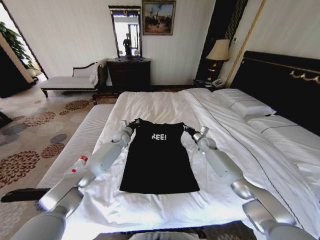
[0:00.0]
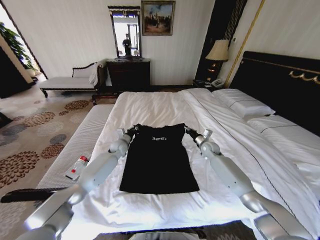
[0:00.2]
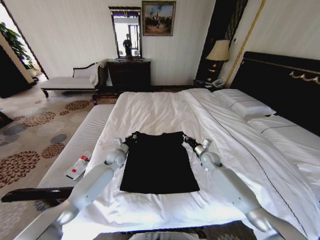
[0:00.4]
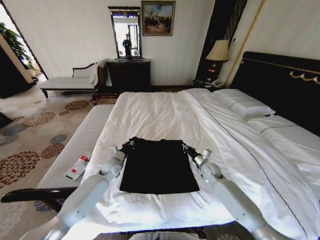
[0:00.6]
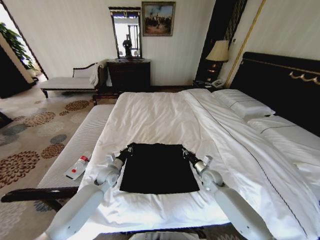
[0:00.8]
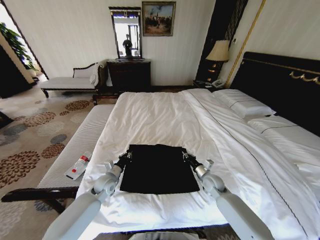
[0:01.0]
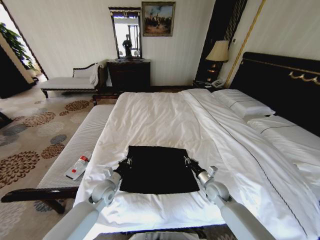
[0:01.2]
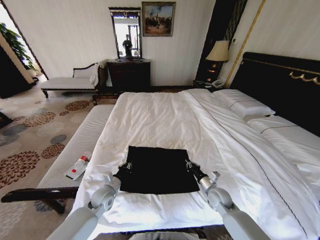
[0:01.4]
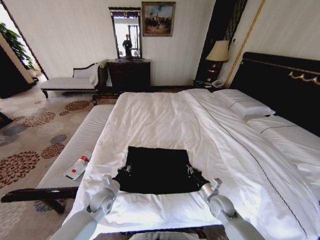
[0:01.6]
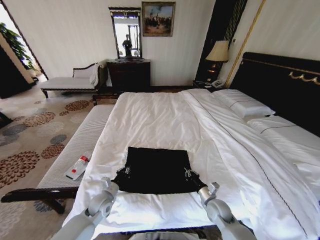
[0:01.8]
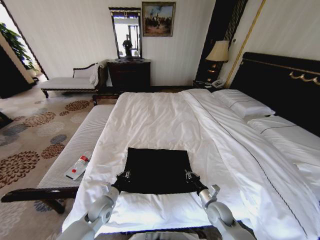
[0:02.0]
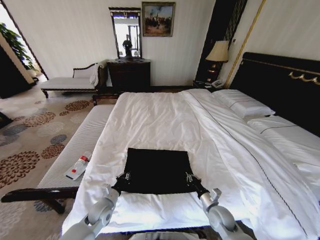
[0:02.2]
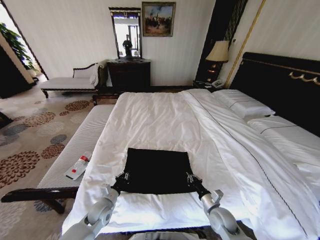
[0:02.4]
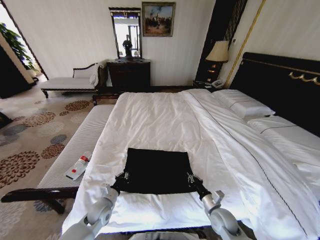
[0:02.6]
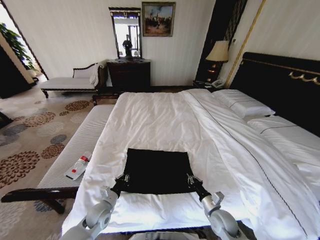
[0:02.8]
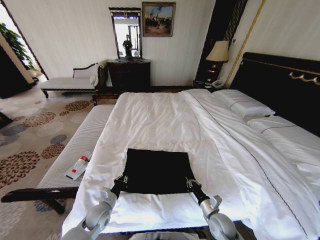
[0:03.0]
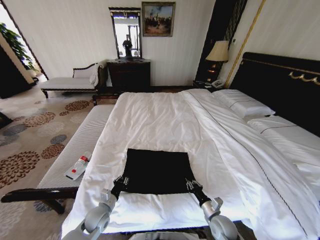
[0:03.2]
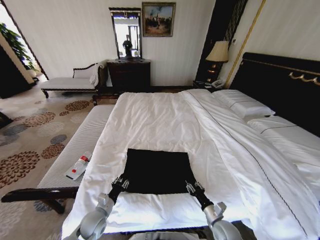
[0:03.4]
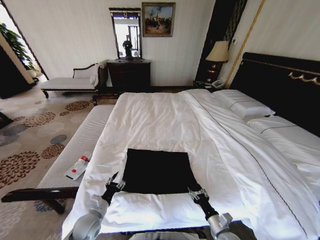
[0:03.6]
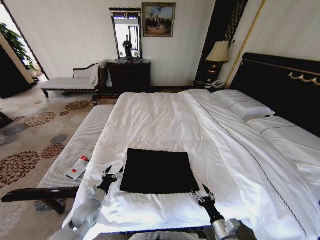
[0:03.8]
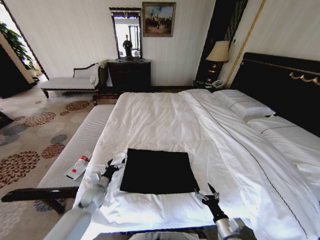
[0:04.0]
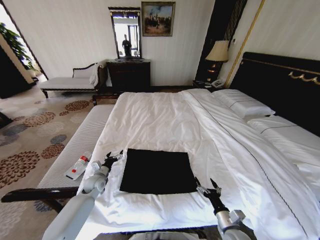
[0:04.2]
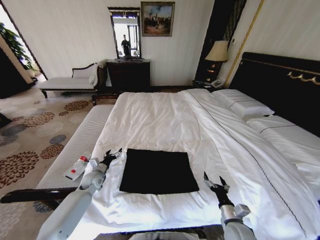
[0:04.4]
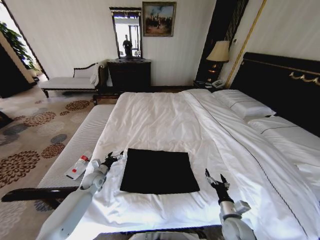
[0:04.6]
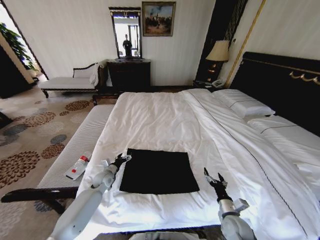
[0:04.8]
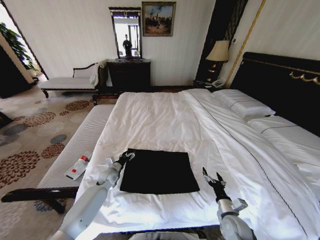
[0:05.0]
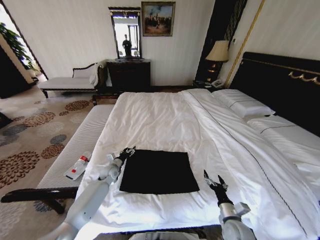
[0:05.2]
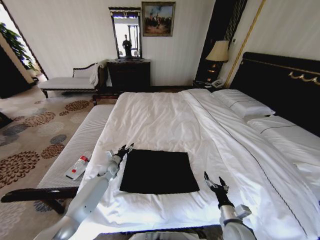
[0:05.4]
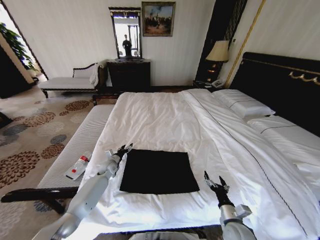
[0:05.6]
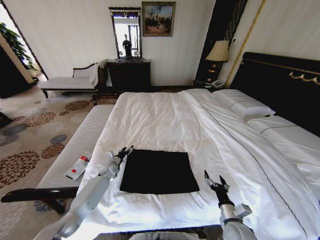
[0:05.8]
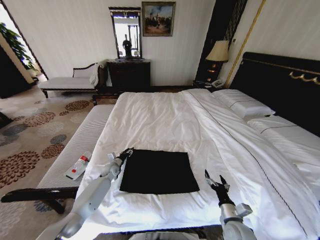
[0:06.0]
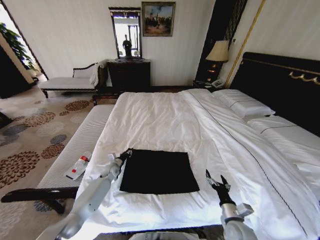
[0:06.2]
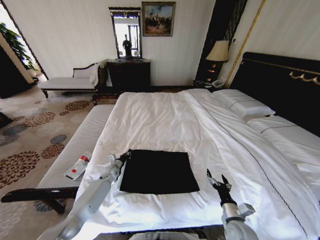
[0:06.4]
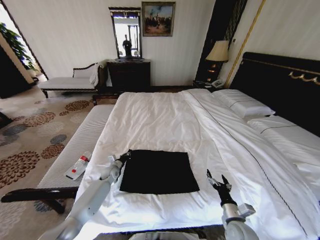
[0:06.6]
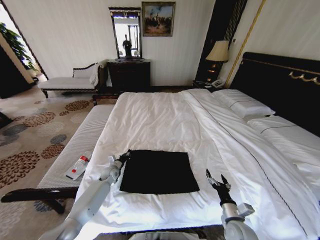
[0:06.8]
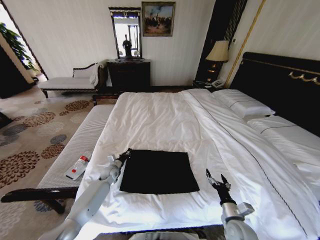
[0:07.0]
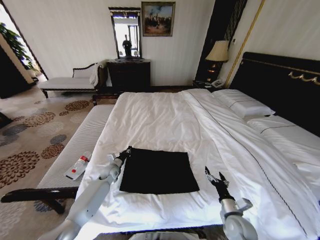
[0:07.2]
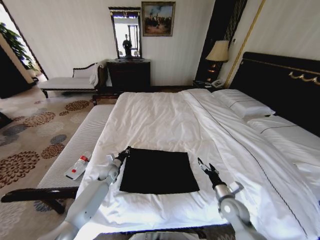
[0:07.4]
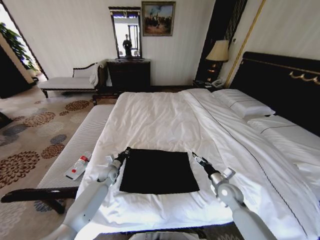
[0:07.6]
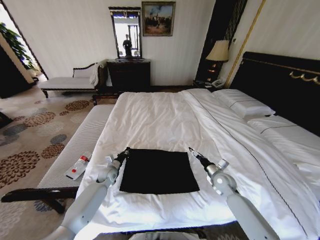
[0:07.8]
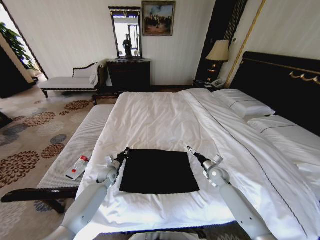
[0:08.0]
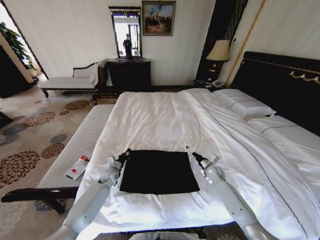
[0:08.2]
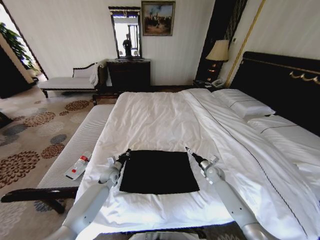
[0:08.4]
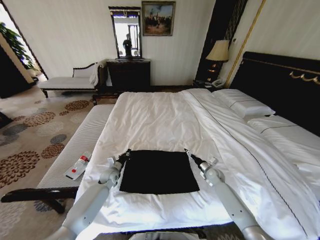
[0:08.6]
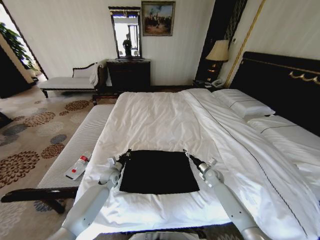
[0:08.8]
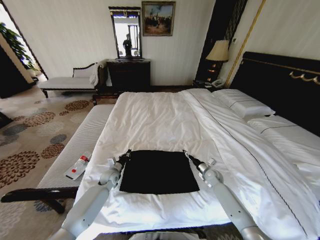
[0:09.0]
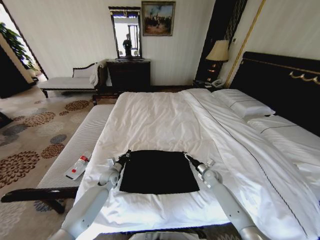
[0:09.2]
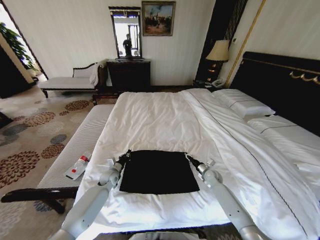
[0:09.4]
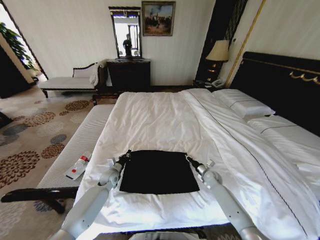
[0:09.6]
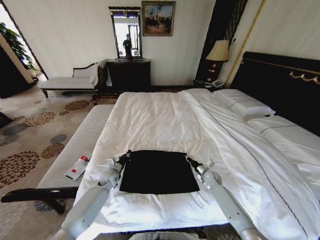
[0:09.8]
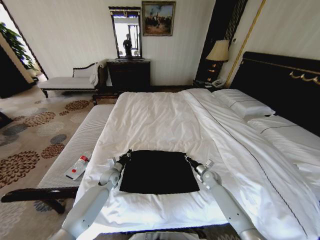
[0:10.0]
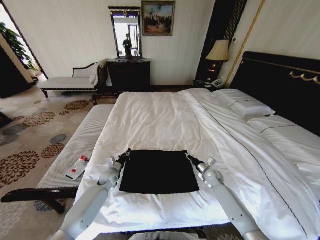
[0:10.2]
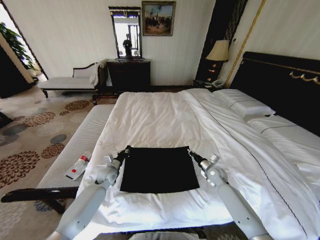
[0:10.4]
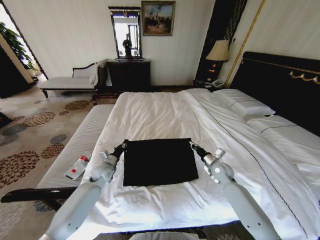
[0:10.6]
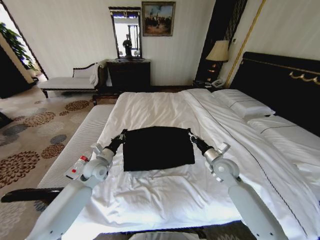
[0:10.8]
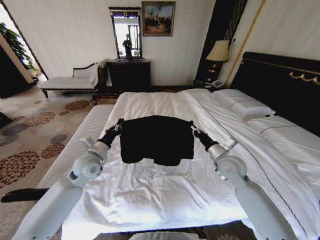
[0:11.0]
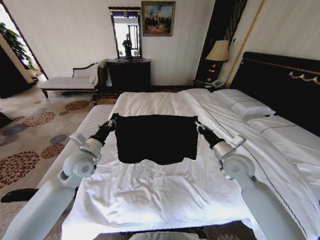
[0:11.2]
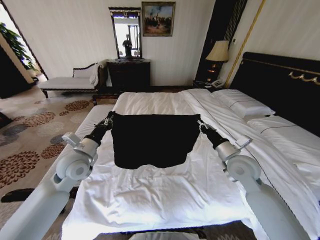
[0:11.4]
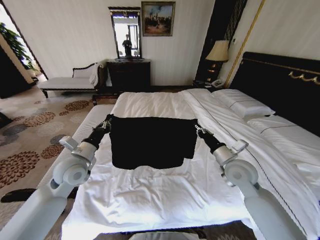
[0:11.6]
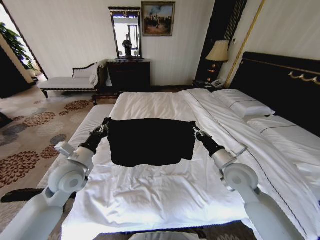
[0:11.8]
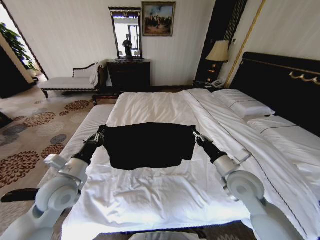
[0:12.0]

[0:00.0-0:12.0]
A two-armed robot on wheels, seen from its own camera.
Task of the whole recording: Fold the clothes on the bed.
0:00.0 to 0:01.6: The two grippers go about 30 cm backward.
0:01.6 to 0:03.0: The two grippers go some 5 cm backward.
0:03.0 to 0:04.4: The right gripper changes place by about 5 cm, and opens; the left gripper shifts some 15 cm forward and to the left, and opens its fingers.
0:04.4 to 0:06.0: The left gripper is displaced forward, to the right and downward by about 10 cm, and closes up.
0:06.0 to 0:07.6: The right gripper travels forward by approximately 15 cm; the left gripper closes up.
0:07.6 to 0:09.0: The right gripper heads forward and downward, covering about 15 cm.
0:09.0 to 0:10.4: The right gripper heads upward, covering some 5 cm, and closes.
0:10.4 to 0:12.0: The two grippers go some 25 cm upward and backward.

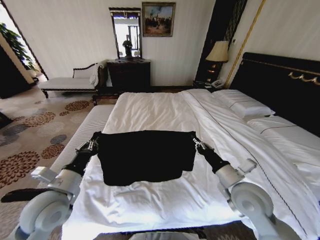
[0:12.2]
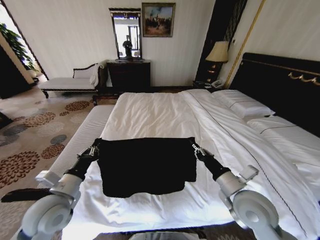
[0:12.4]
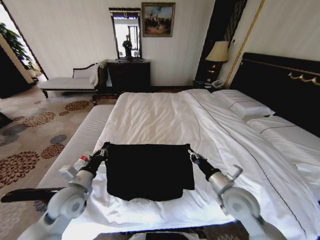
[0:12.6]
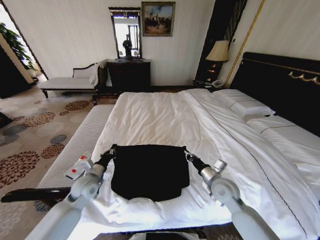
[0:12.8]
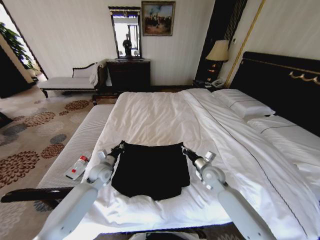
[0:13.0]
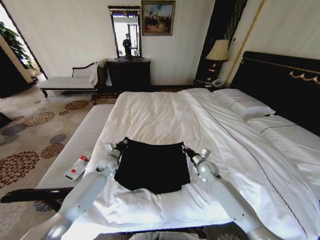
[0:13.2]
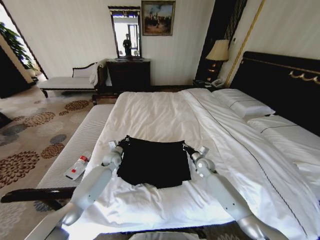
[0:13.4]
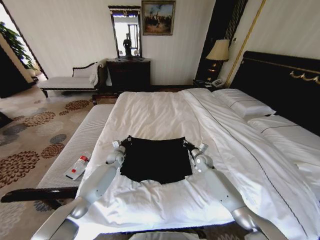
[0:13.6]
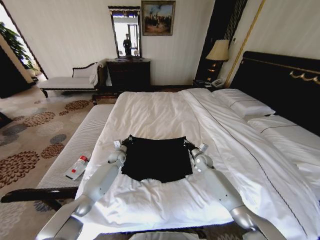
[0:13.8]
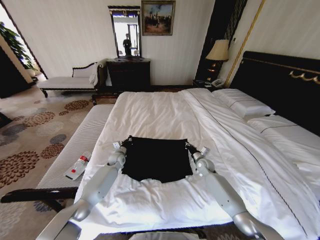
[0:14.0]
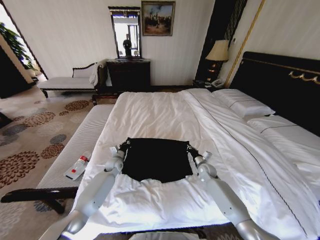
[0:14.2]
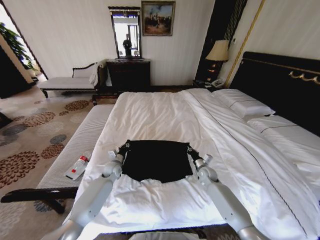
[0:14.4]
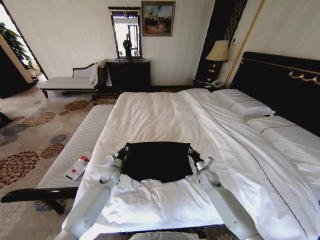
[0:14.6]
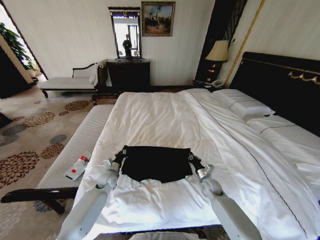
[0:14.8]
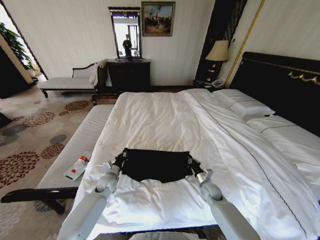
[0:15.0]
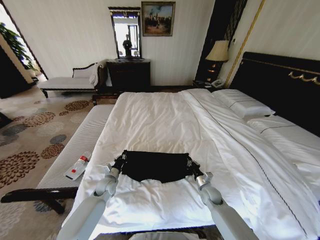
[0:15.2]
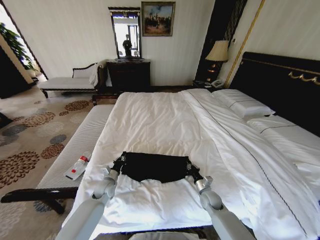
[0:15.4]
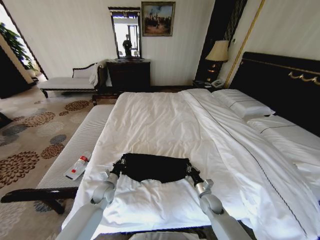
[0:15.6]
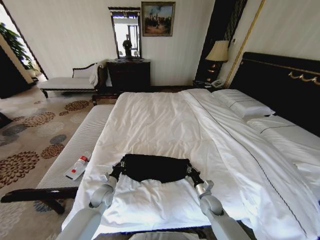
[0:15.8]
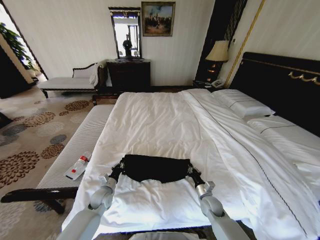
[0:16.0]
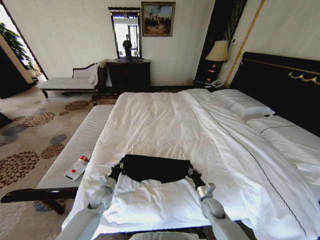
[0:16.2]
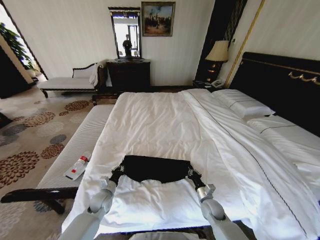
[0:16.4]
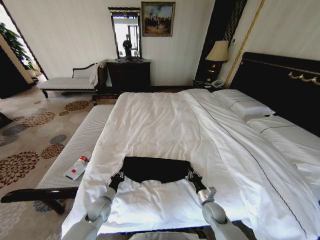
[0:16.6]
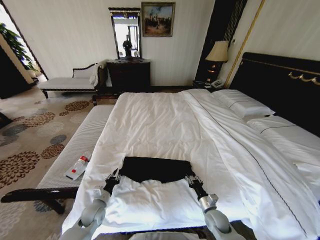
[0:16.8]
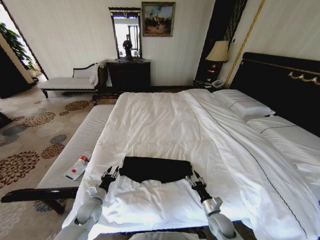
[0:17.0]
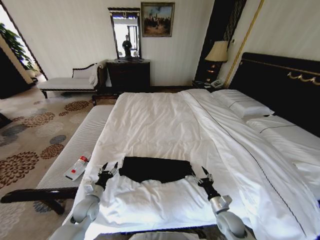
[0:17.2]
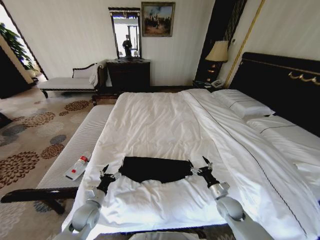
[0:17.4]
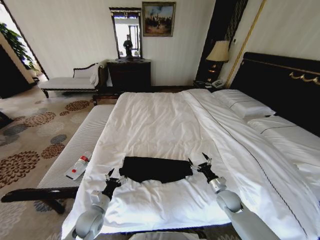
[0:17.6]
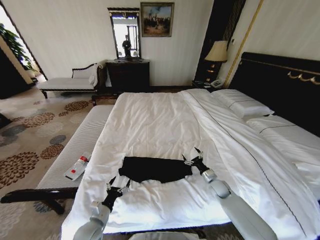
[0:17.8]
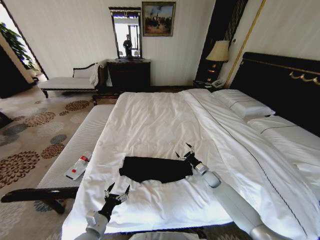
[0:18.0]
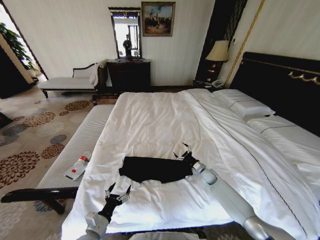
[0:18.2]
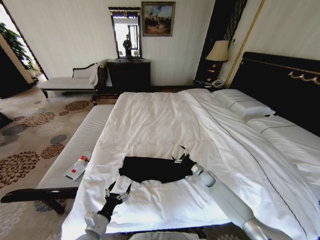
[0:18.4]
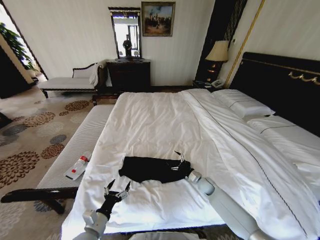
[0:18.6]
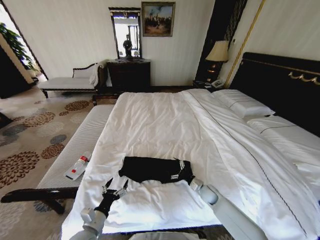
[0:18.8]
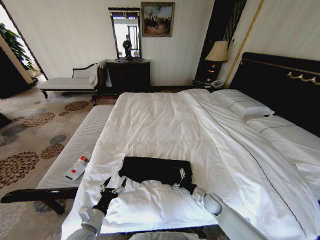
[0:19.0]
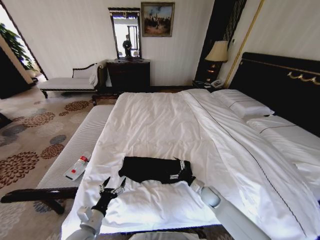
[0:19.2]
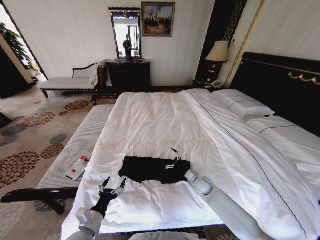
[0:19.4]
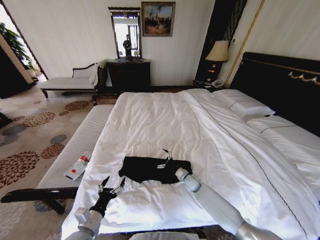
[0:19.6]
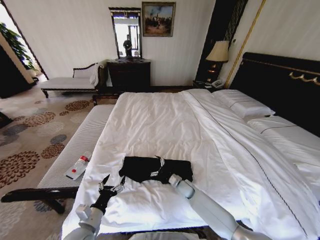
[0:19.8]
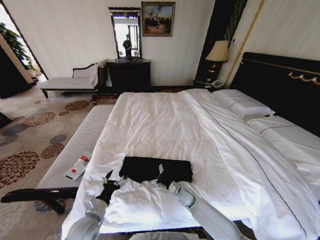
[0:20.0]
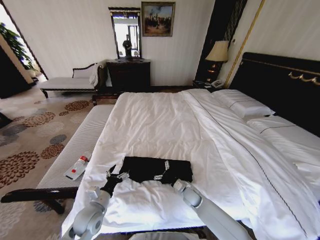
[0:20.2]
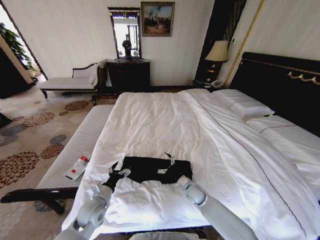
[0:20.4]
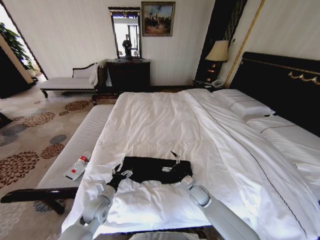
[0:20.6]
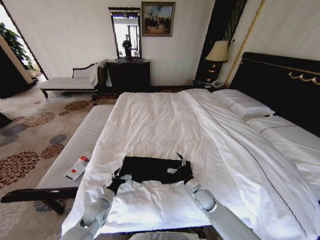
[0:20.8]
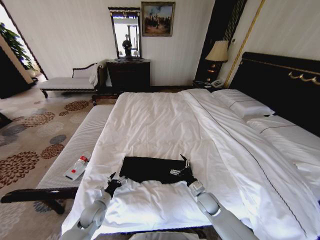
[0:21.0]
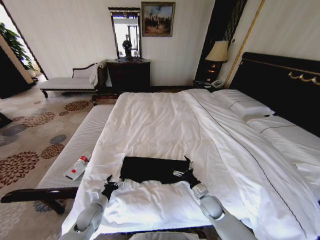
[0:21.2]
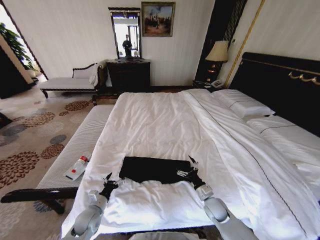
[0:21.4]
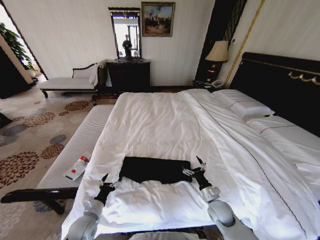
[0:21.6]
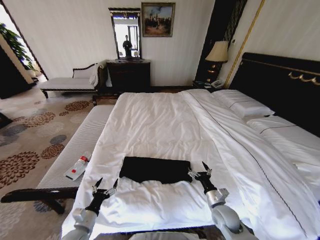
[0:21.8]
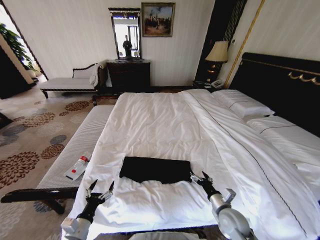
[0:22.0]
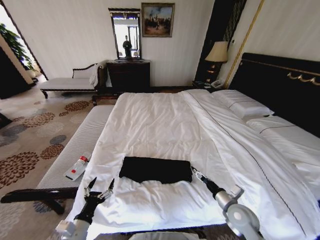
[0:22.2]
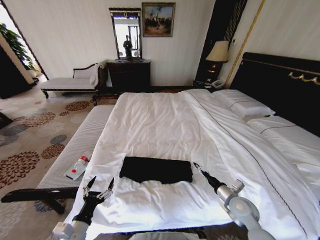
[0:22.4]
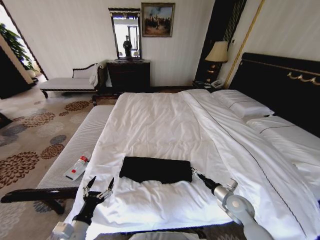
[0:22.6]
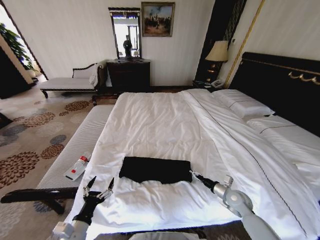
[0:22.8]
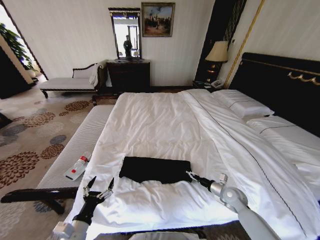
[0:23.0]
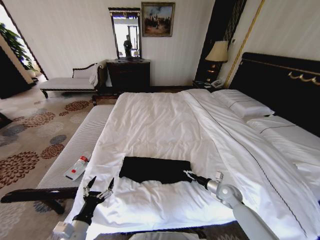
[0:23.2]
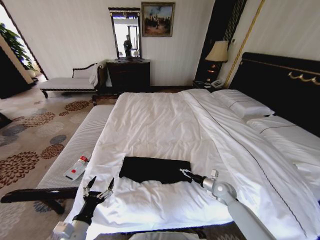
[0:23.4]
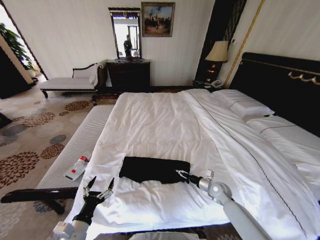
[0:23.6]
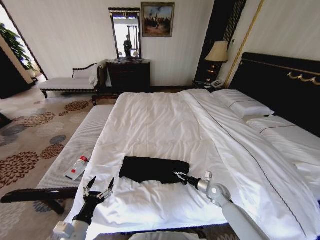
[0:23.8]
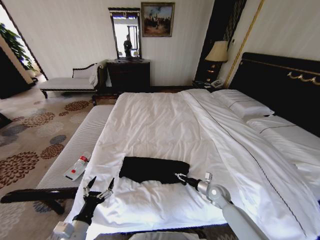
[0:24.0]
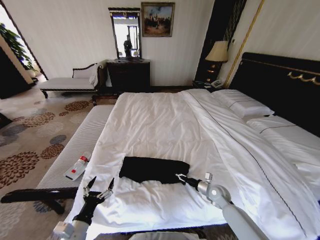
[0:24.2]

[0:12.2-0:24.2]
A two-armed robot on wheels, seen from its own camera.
Task of the whole recording: Fold the clothes on the bed.
0:12.2 to 0:13.8: Both grippers travel together forward and downward, some 35 cm.
0:13.8 to 0:15.2: The left gripper shifts some 15 cm backward, while the right gripper goes some 15 cm backward and downward.
0:15.2 to 0:16.6: Both grippers move backward, about 10 cm.
0:16.6 to 0:18.2: The left gripper heads backward and upward, covering about 15 cm, and opens, while the right gripper is displaced forward by some 20 cm, and opens its fingers.
0:18.2 to 0:19.8: The right gripper goes some 15 cm to the left and backward.
0:19.8 to 0:21.2: The right gripper moves backward and to the right, roughly 15 cm. The left gripper travels downward and forward by some 15 cm.
0:21.2 to 0:22.6: The left gripper is displaced backward and upward by approximately 15 cm. The right gripper is displaced to the right and upward by some 10 cm.
0:22.6 to 0:24.2: The right gripper heads forward and downward, covering roughly 10 cm, and closes its fingers.
